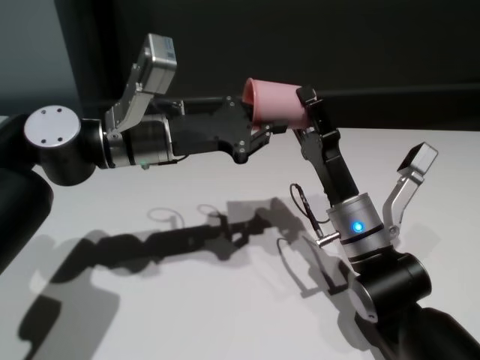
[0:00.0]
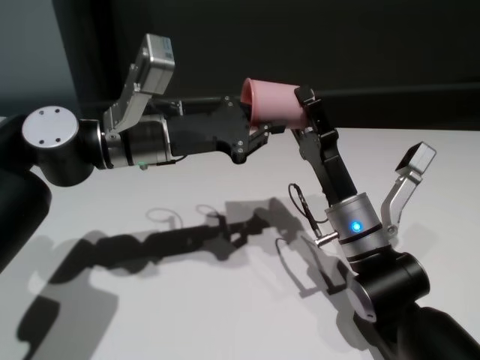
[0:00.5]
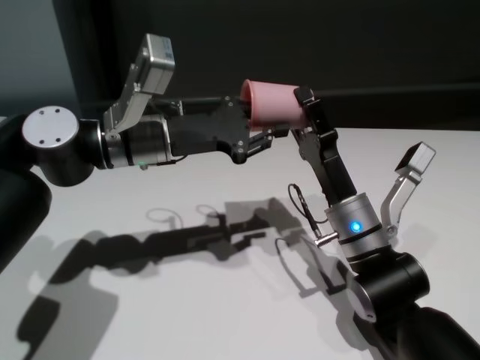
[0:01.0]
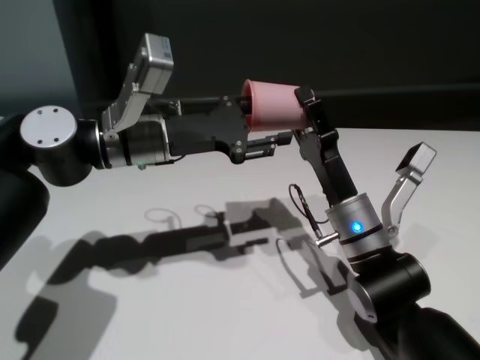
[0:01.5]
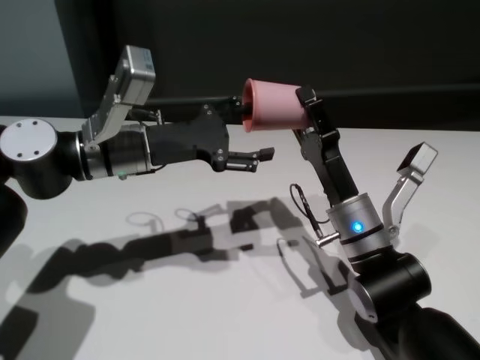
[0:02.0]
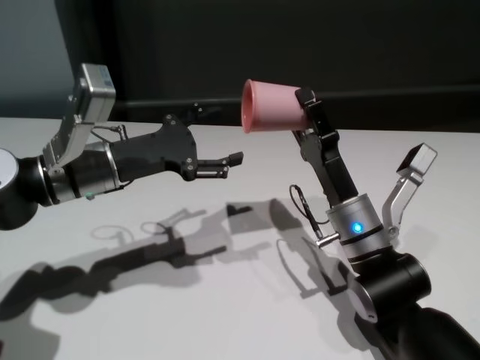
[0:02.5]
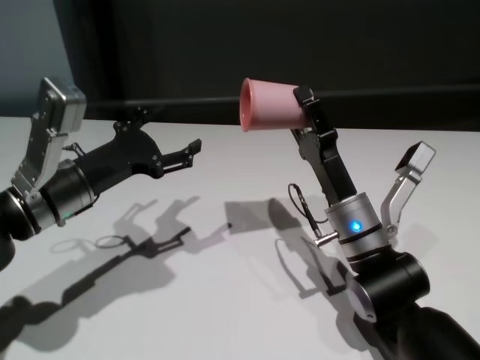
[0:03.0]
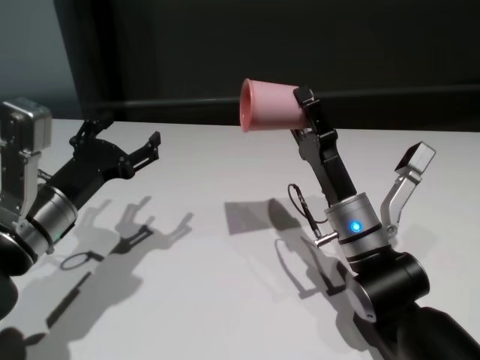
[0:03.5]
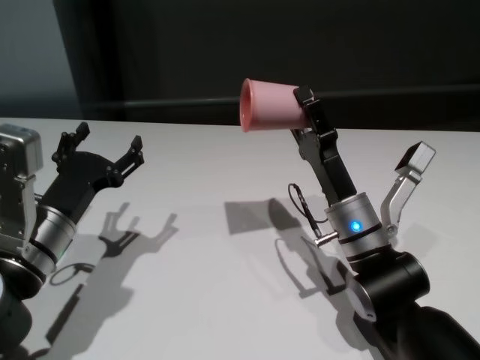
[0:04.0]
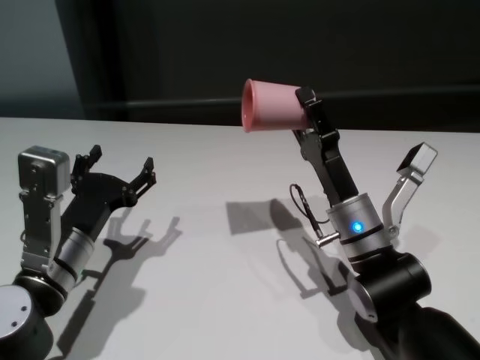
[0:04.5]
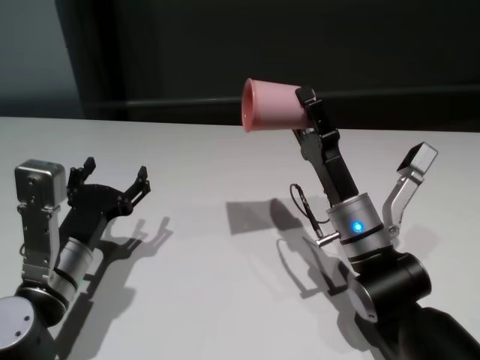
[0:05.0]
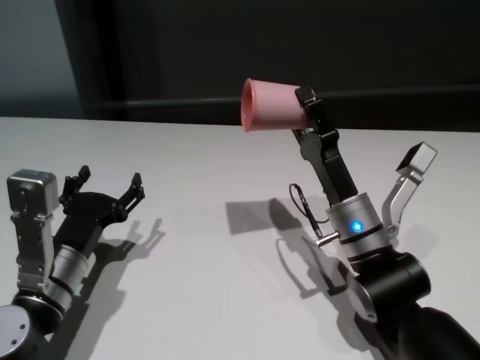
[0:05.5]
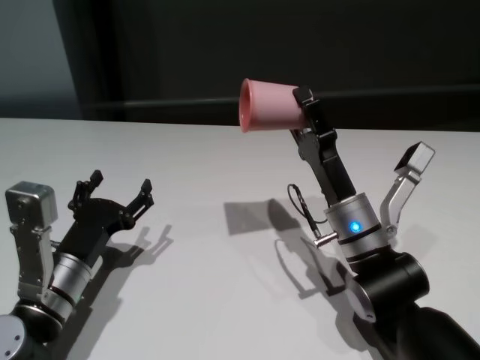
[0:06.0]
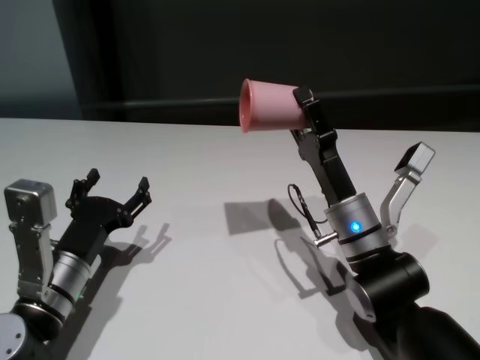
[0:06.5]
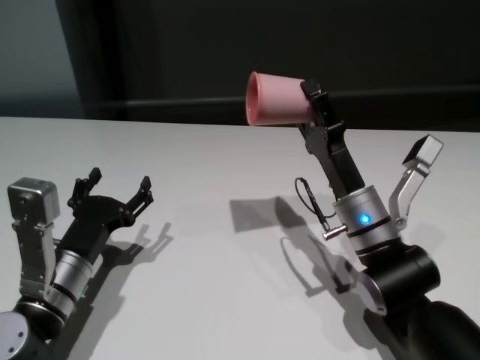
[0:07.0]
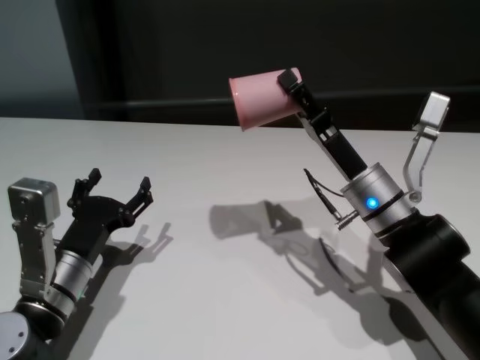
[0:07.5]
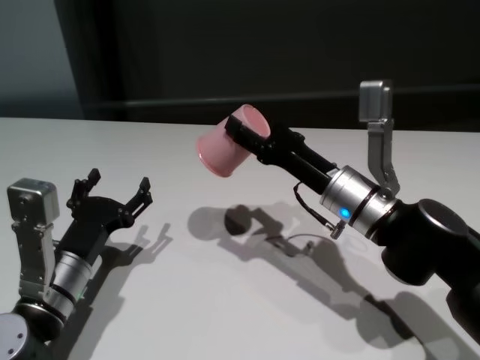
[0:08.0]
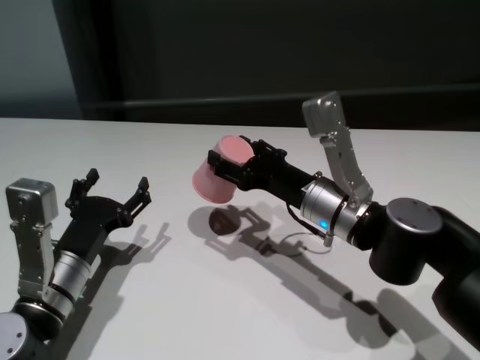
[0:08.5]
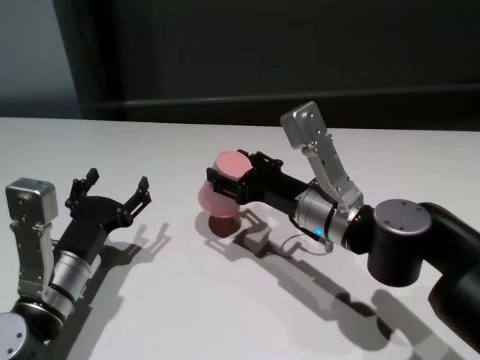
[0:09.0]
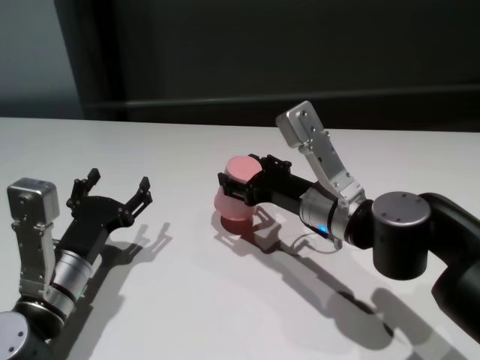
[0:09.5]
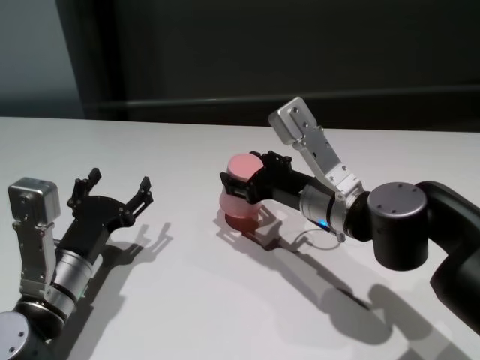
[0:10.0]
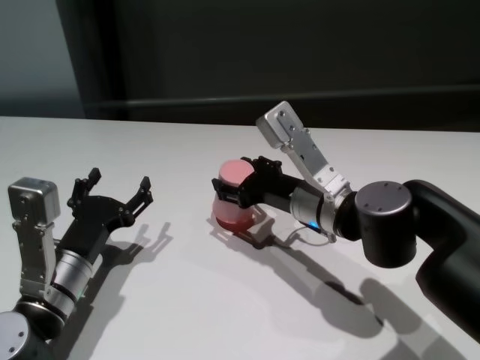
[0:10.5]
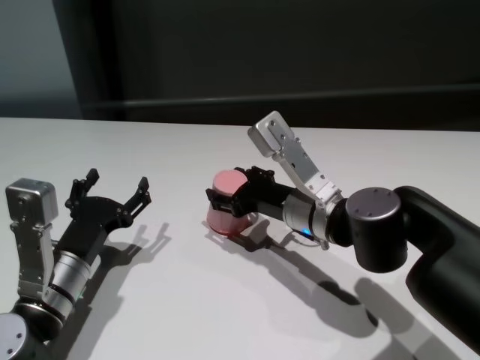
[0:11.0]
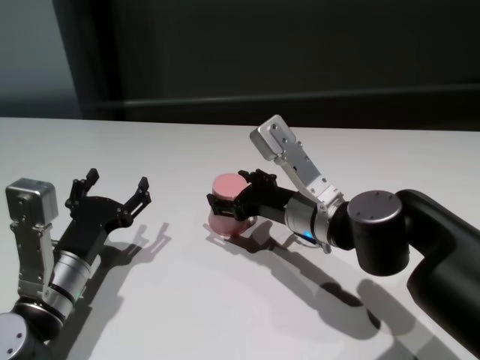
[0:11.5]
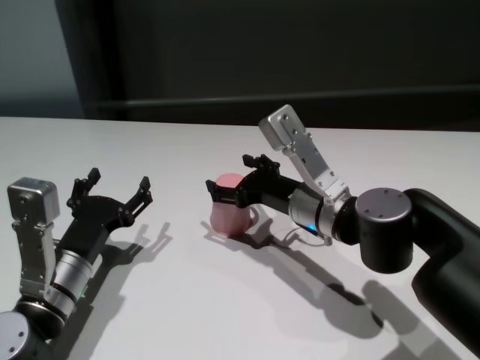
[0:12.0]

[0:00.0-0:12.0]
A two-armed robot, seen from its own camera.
Task of the whole recording: On the white table pick up the cup with one hand and transfer it to the other hand before turning it over.
Step, 0:00.0 to 0:02.5: Pass the cup to the right gripper.
